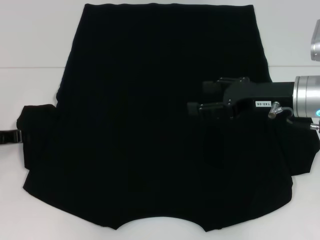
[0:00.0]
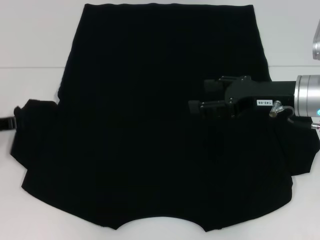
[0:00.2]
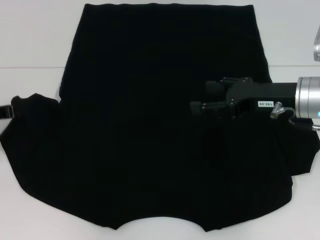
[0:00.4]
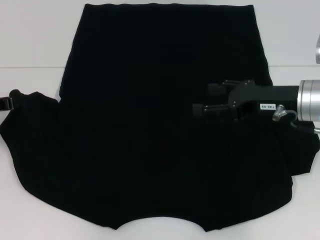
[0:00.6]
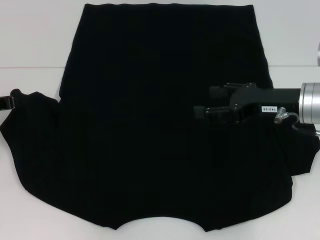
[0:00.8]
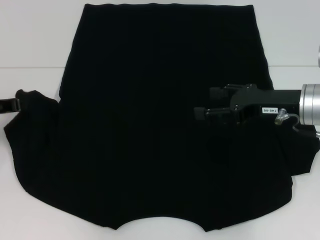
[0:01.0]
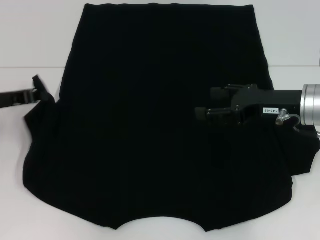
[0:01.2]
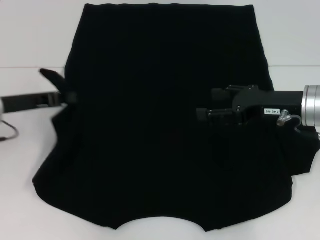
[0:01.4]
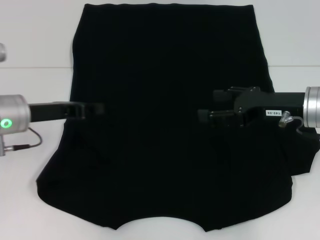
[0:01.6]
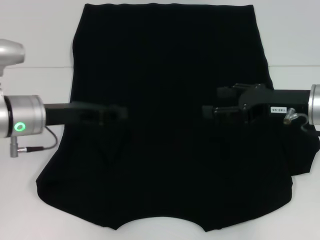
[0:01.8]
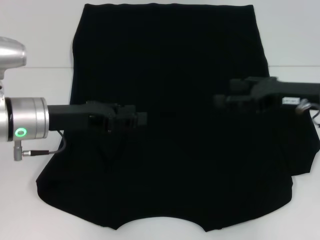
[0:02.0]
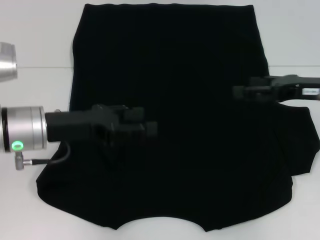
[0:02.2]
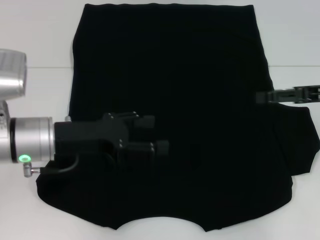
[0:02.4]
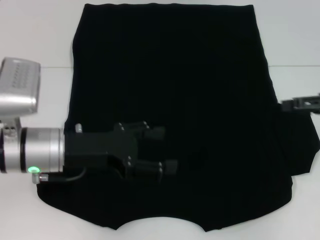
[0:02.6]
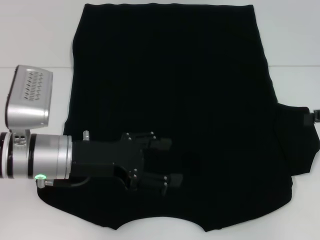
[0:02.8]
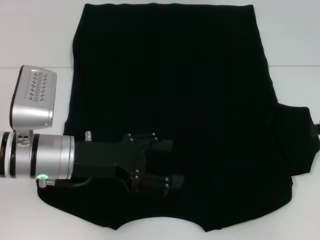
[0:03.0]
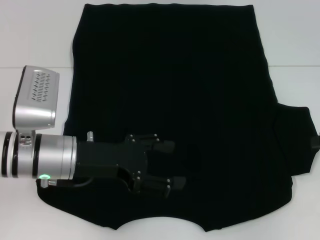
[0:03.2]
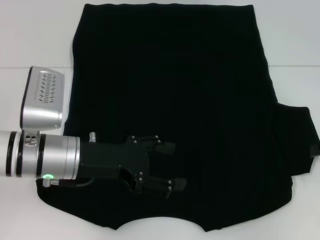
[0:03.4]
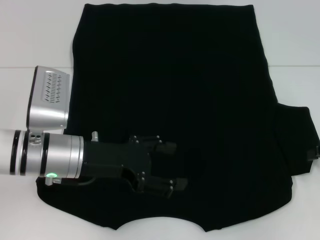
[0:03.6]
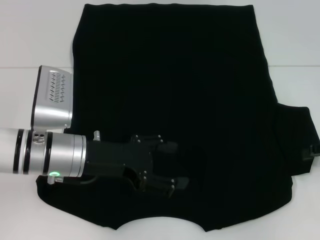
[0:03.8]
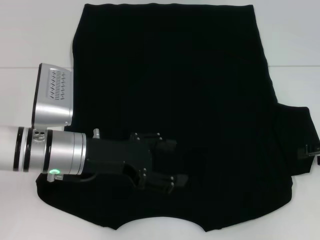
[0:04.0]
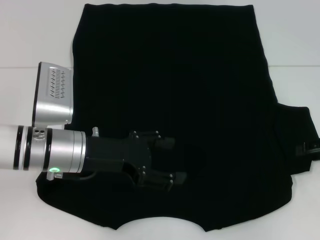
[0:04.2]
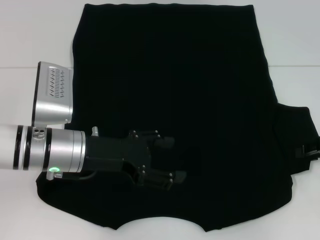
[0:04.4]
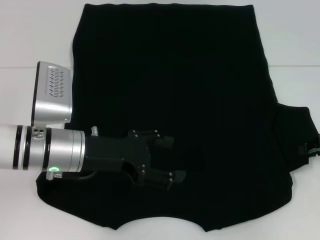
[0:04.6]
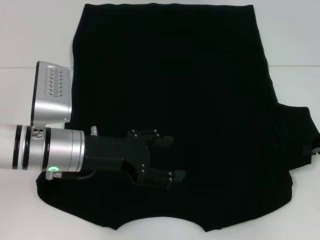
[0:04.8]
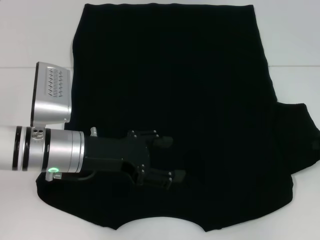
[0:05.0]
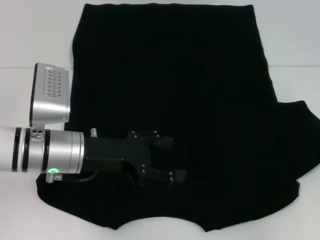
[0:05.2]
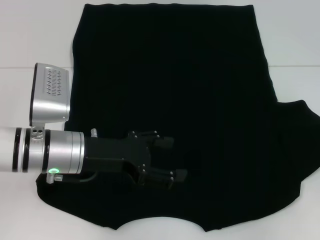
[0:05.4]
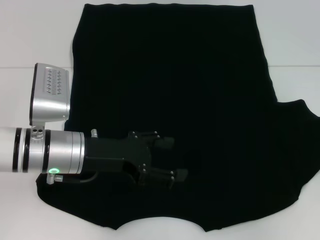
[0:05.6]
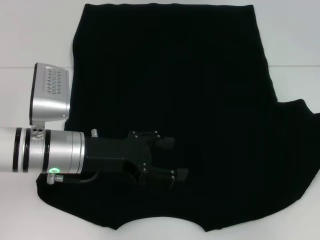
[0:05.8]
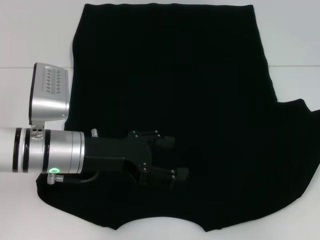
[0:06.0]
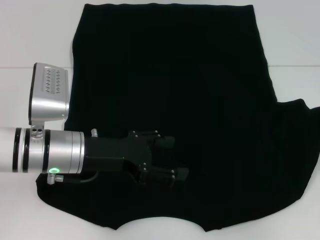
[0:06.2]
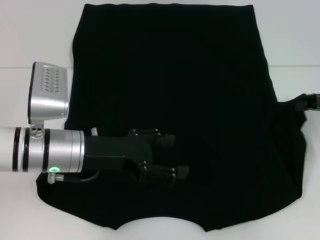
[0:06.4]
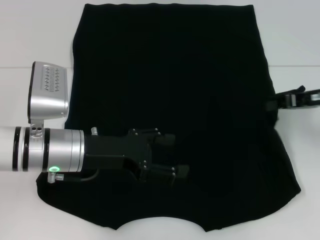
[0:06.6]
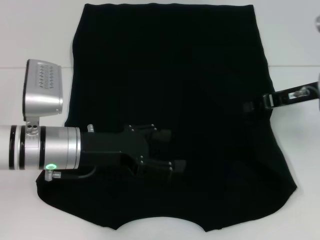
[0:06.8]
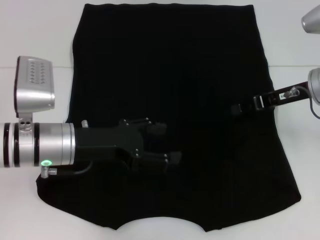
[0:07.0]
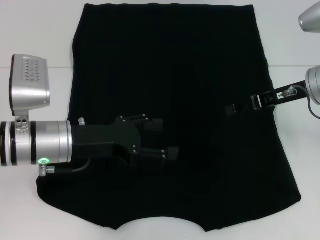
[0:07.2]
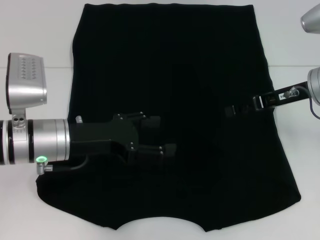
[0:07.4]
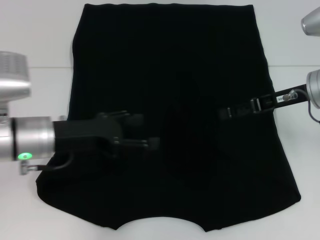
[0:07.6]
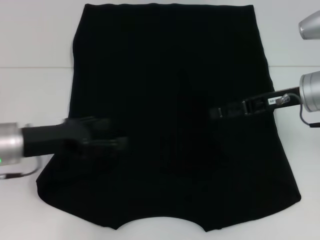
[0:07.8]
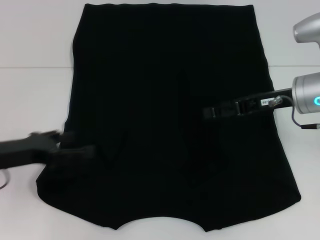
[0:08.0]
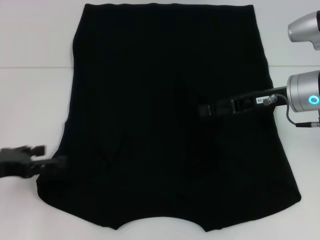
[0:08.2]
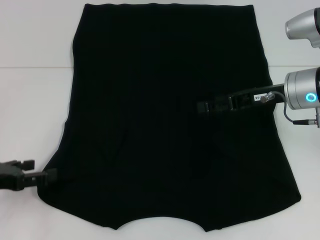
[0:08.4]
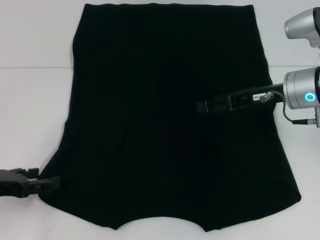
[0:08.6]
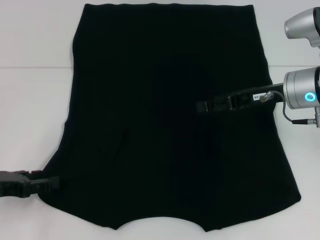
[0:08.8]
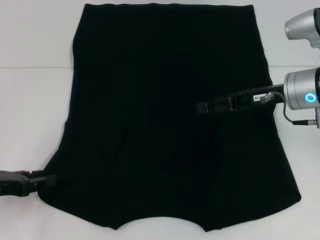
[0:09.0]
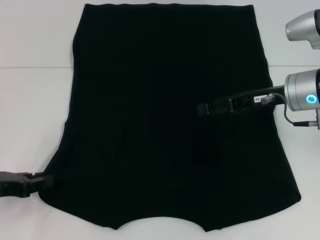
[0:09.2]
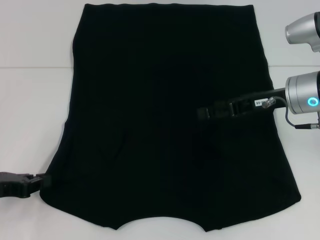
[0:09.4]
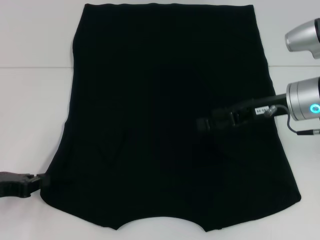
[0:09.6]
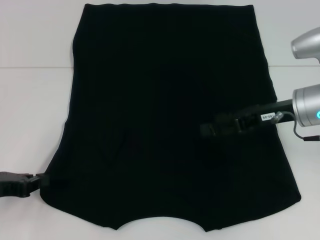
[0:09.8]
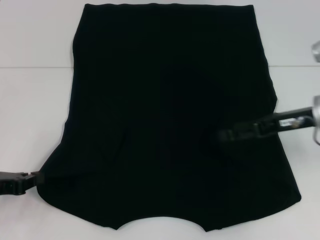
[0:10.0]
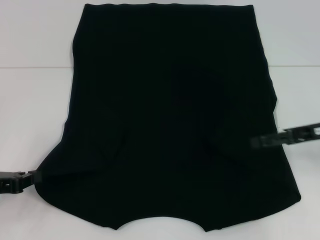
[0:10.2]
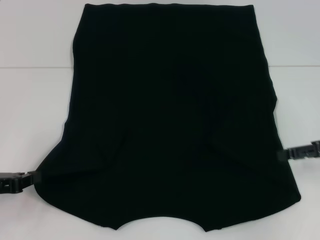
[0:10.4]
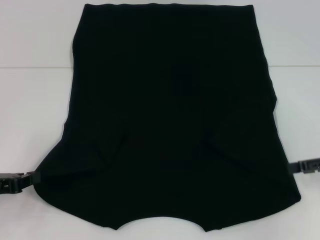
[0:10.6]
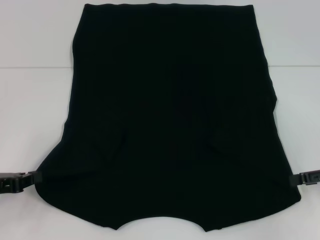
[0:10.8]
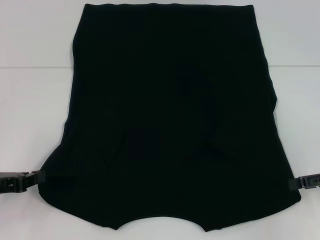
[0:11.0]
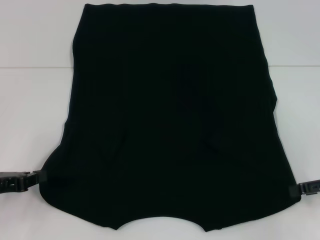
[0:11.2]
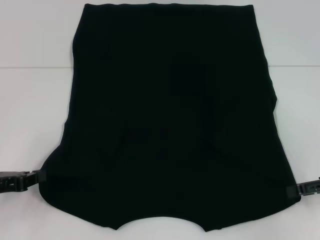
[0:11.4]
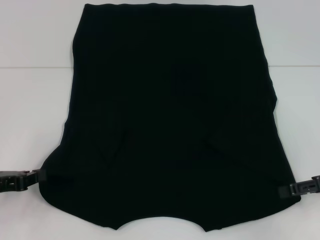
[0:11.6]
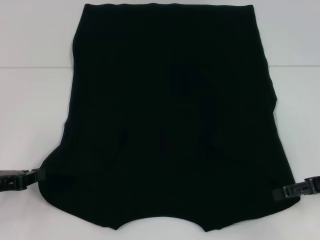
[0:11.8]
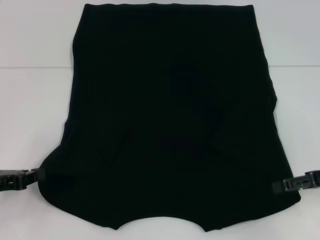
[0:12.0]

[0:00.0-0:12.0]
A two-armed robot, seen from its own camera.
Step, 0:00.0 to 0:02.0: Fold the bottom left sleeve with your left hand.
Step, 0:02.2 to 0:07.2: Fold the bottom right sleeve with your right hand.
Step, 0:07.4 to 0:10.0: Grab the bottom left corner with your left hand.
0:00.0 to 0:01.6: The left gripper moves to the right, approximately 10 cm.
0:01.6 to 0:03.0: The left gripper moves to the right, about 5 cm, and opens, while the right gripper shifts about 15 cm to the right.
0:04.4 to 0:06.0: The right gripper closes up.
0:06.0 to 0:07.6: The right gripper goes some 15 cm to the left, and opens up.
0:07.6 to 0:09.0: The left gripper moves to the left and backward, roughly 15 cm.
0:09.0 to 0:10.4: The left gripper closes its fingers. Meanwhile the right gripper moves to the right and backward, about 15 cm.
0:10.4 to 0:12.0: There are only small adjustments of the grippers.

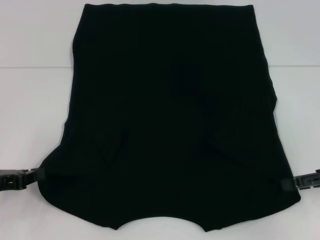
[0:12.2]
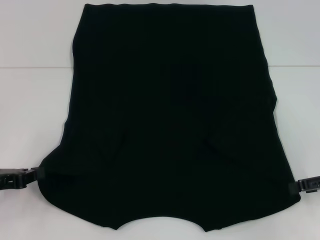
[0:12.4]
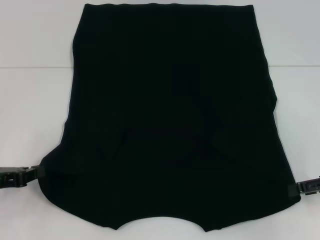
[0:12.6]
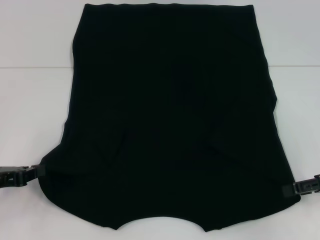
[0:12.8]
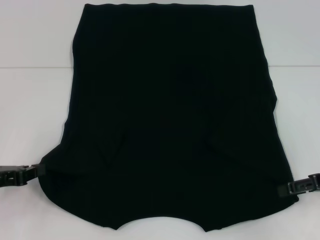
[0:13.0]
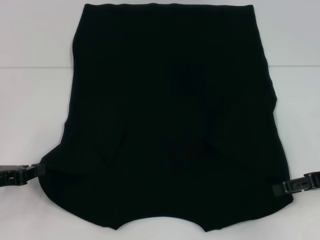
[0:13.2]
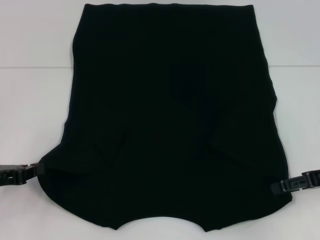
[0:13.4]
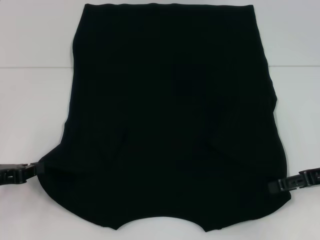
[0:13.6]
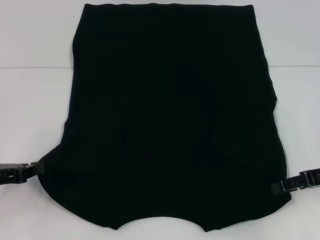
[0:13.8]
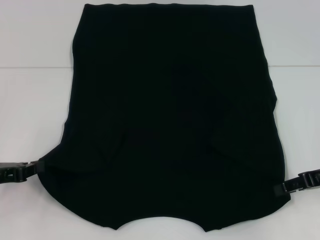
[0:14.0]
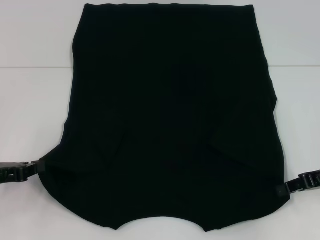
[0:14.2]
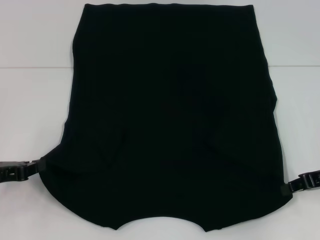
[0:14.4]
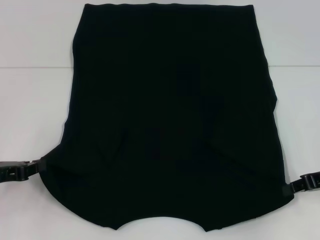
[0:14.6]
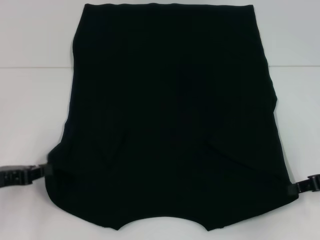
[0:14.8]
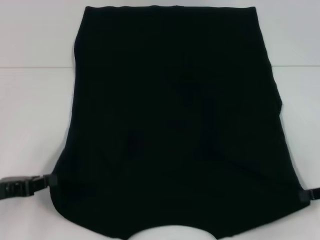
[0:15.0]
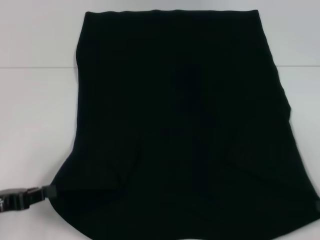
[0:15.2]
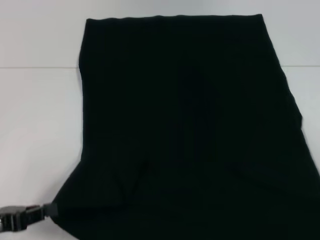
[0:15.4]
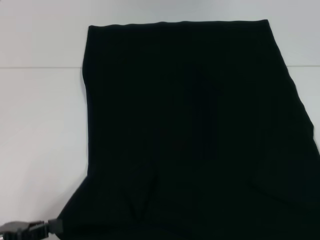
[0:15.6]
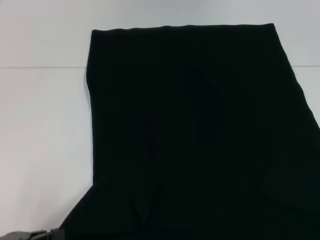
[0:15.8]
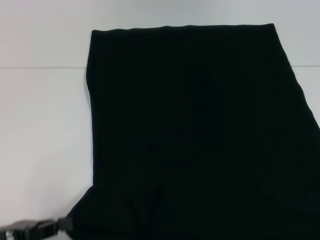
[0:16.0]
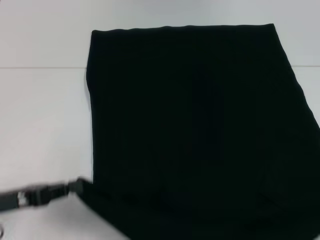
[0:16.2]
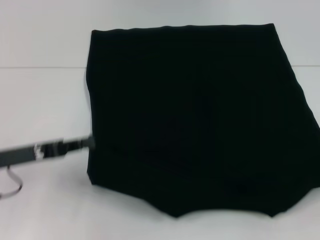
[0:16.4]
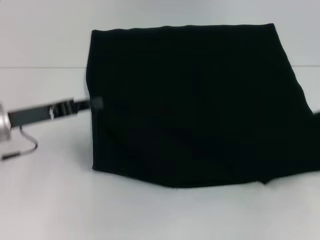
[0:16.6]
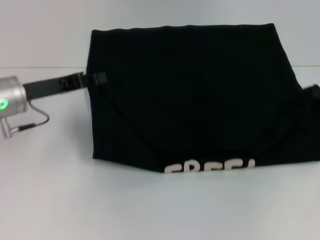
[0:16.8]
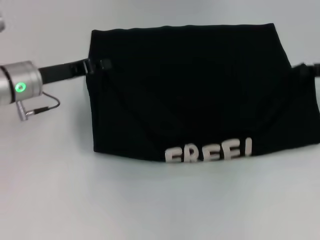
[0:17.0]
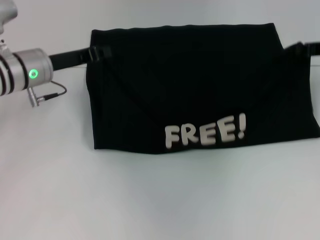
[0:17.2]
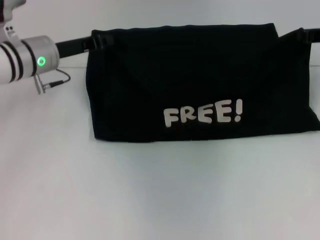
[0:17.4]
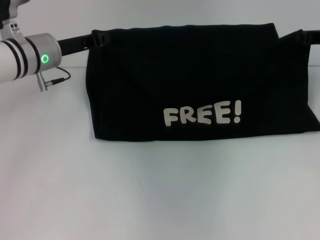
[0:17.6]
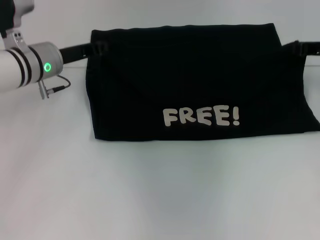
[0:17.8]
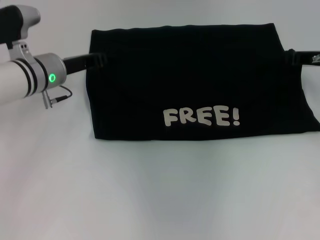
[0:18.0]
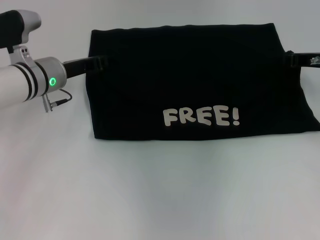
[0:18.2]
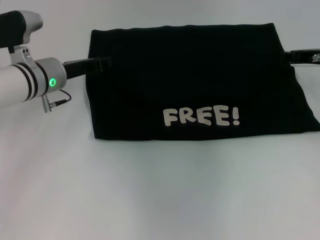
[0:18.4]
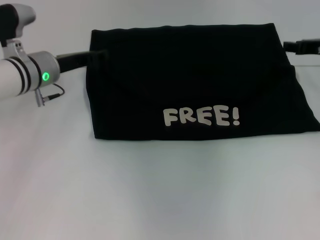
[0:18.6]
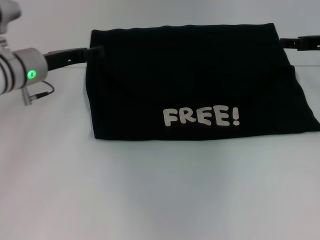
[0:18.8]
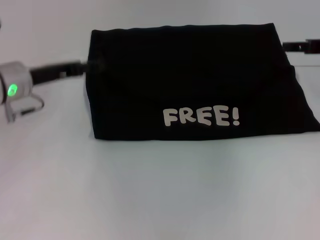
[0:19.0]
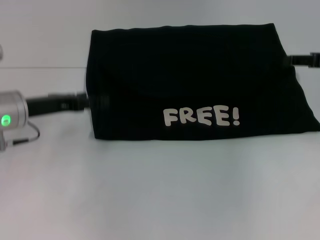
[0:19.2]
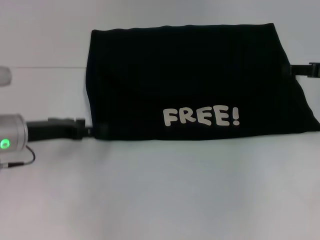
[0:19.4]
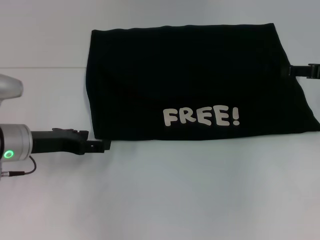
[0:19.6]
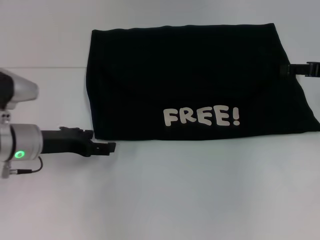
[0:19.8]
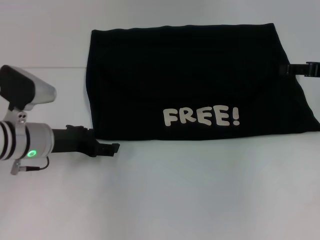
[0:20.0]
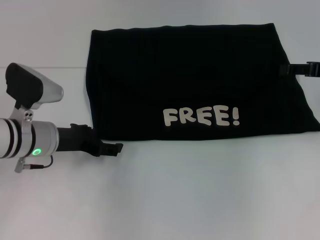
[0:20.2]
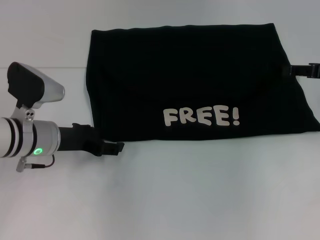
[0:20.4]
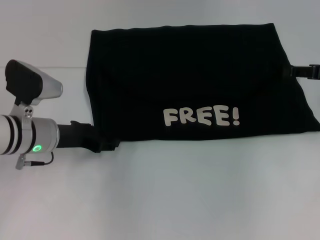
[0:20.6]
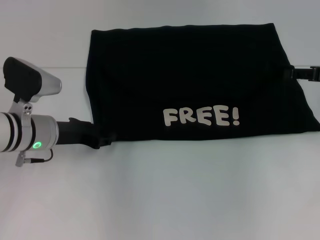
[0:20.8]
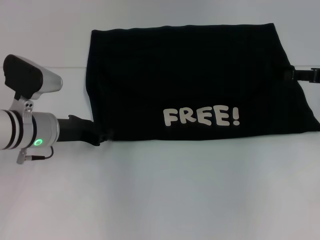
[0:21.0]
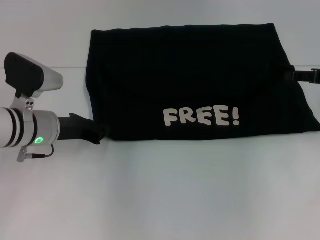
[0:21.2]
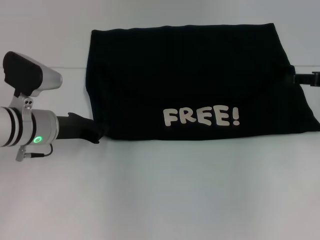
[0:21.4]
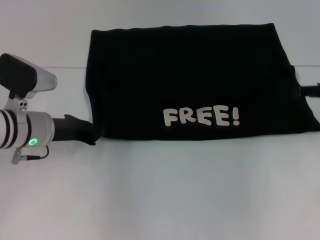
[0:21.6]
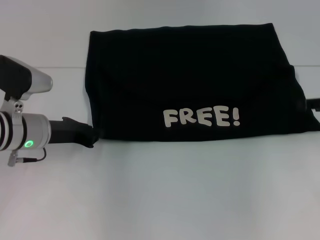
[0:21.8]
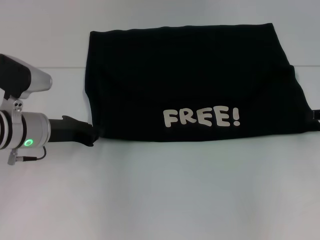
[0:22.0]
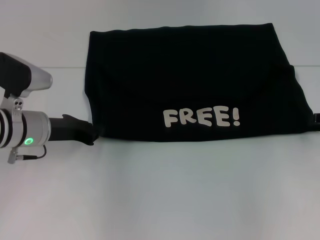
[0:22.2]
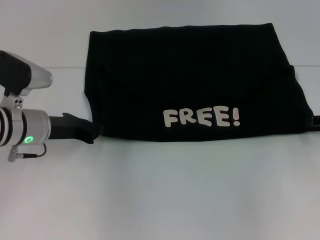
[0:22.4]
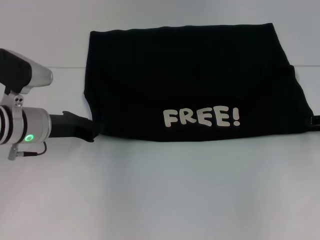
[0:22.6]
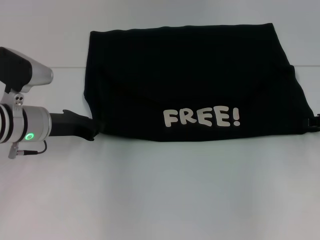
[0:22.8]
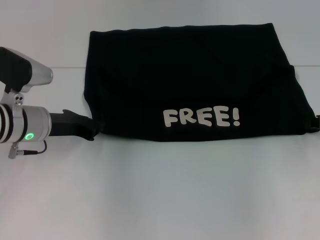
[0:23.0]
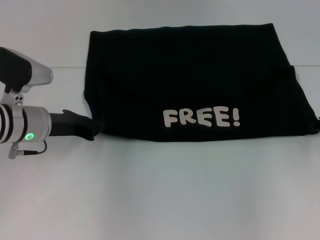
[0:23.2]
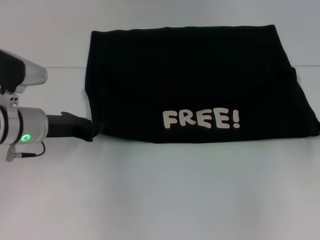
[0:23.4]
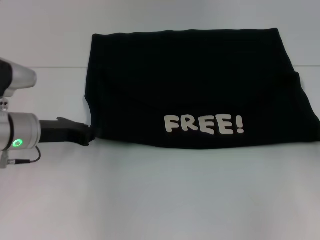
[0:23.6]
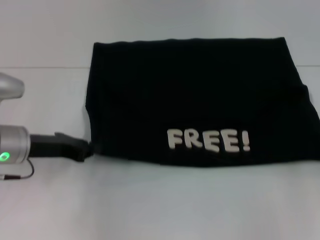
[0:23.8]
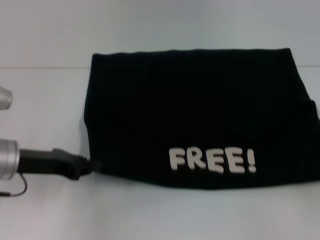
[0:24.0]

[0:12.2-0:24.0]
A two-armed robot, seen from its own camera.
Step, 0:12.8 to 0:18.6: Fold the clothes with your left hand.
Step, 0:12.8 to 0:18.6: Fold the clothes with your right hand.
0:12.2 to 0:13.6: The grippers make only small movements.
0:13.6 to 0:15.2: The right gripper heads to the right and backward, covering roughly 10 cm, and closes its fingers.
0:15.2 to 0:16.6: The right gripper moves forward and upward, roughly 10 cm; the left gripper heads forward and to the right, covering some 10 cm.
0:16.6 to 0:18.2: The left gripper goes roughly 15 cm forward and to the right. The right gripper heads forward and to the left, covering approximately 15 cm.
0:18.2 to 0:19.6: The right gripper moves approximately 5 cm, and opens up, while the left gripper goes some 10 cm backward, and opens.
0:19.6 to 0:21.0: The left gripper closes up.
0:21.0 to 0:22.6: The left gripper closes up. Meanwhile the right gripper ends up approximately 5 cm from where it was.
0:22.6 to 0:24.0: The right gripper goes some 10 cm backward, and closes its fingers, while the left gripper heads backward, covering some 5 cm.
